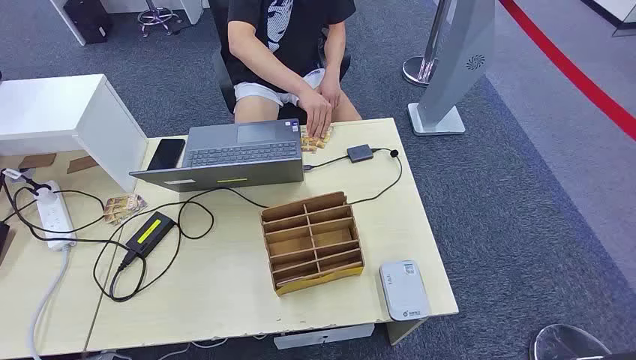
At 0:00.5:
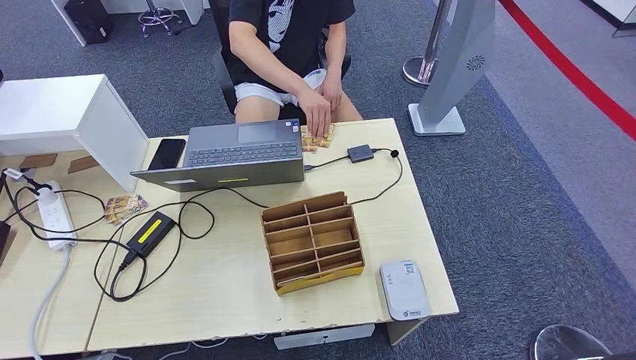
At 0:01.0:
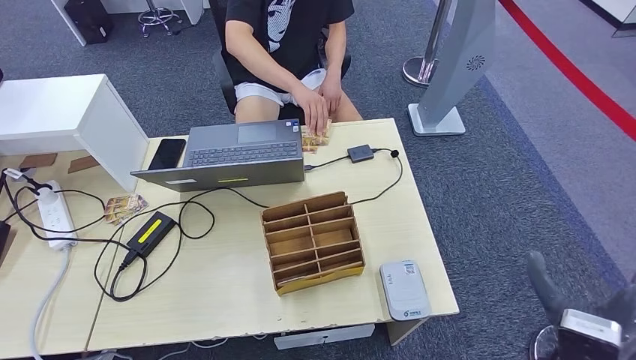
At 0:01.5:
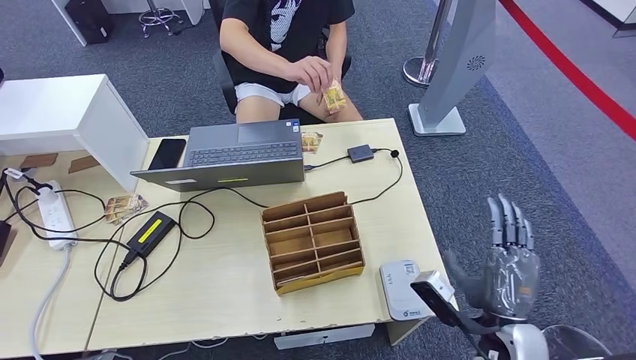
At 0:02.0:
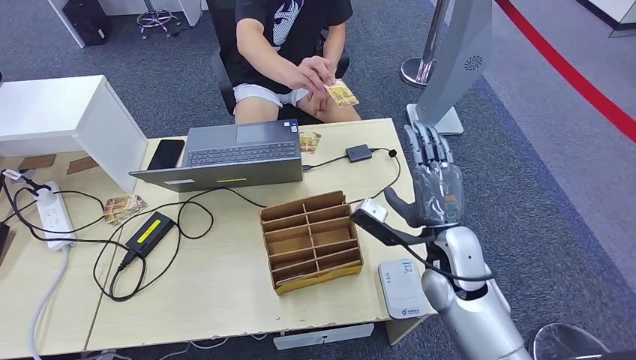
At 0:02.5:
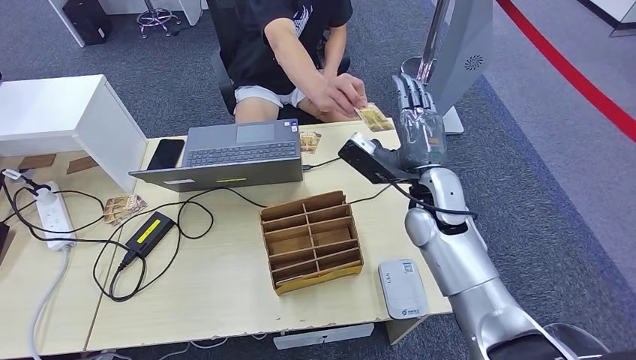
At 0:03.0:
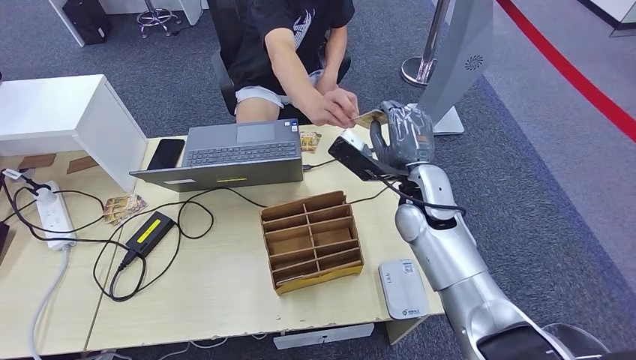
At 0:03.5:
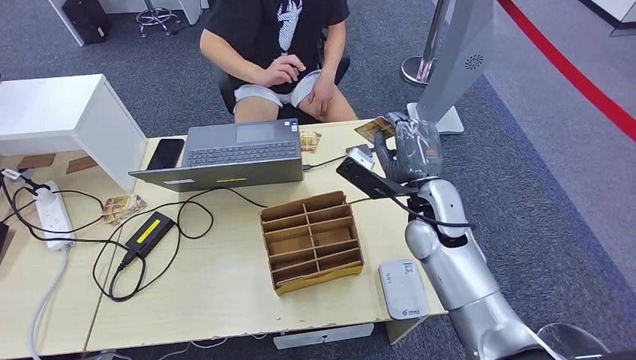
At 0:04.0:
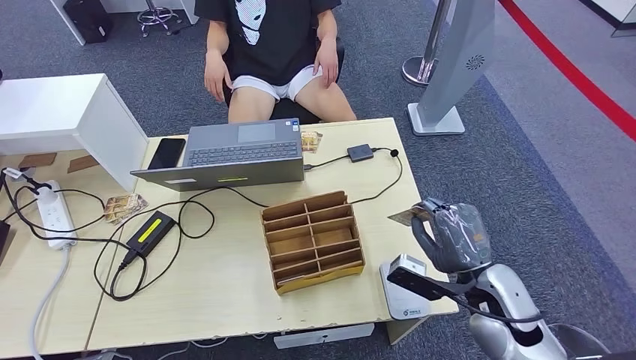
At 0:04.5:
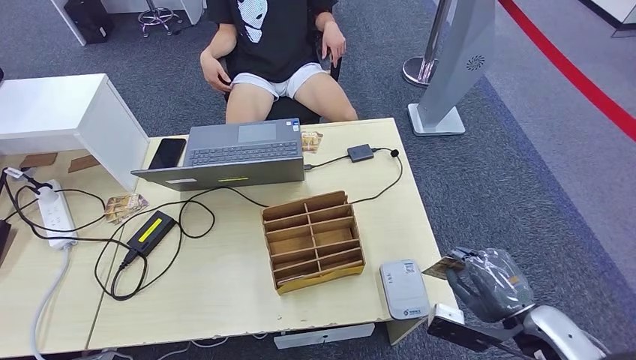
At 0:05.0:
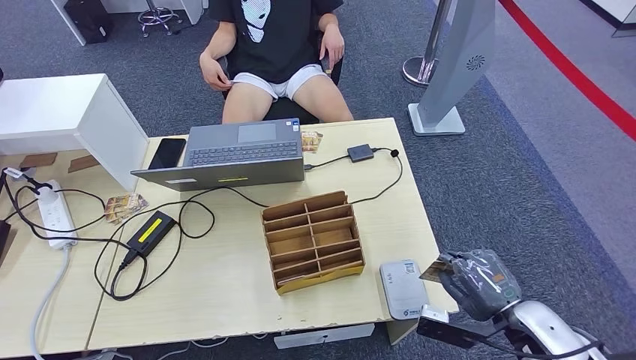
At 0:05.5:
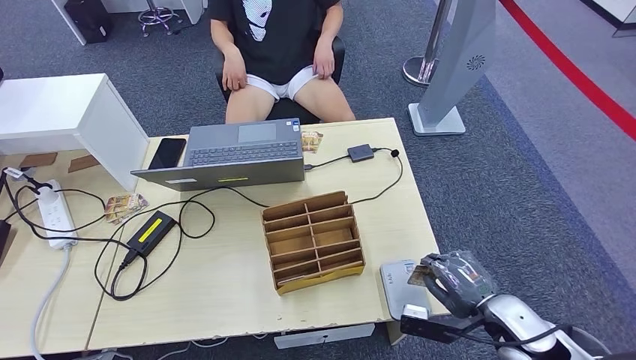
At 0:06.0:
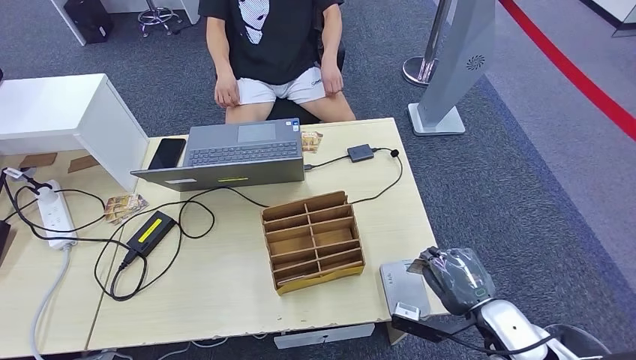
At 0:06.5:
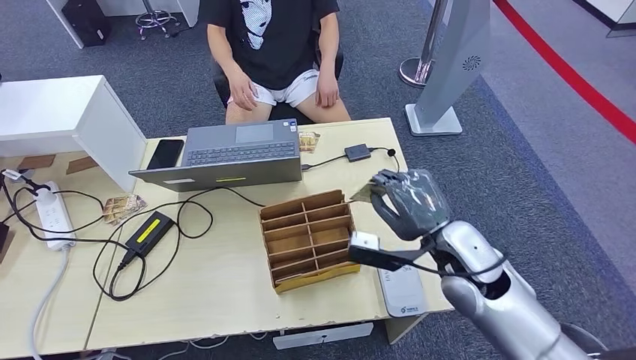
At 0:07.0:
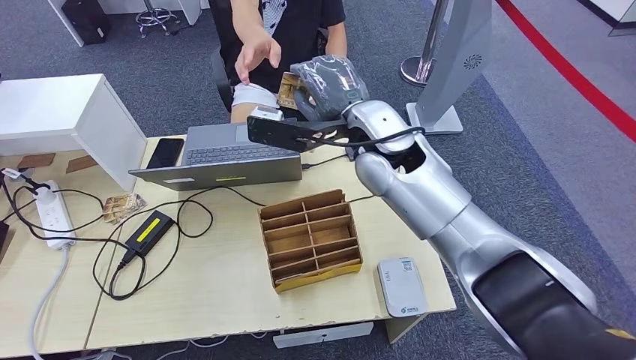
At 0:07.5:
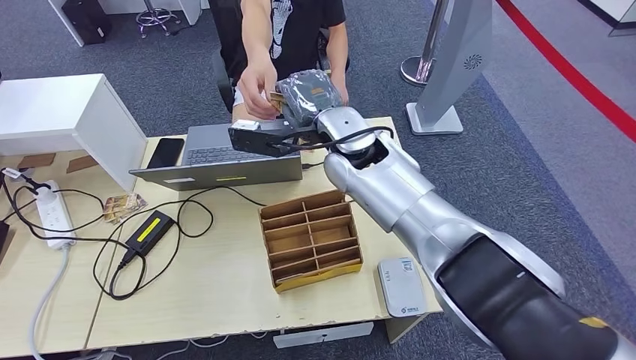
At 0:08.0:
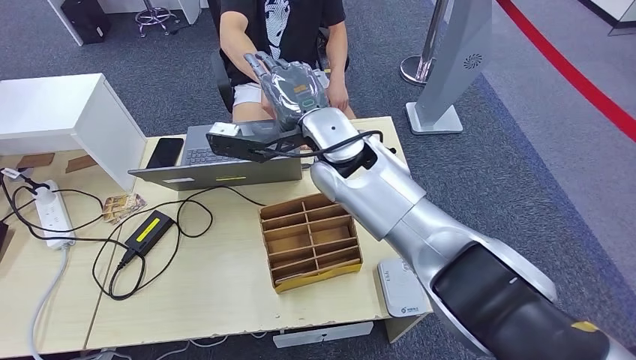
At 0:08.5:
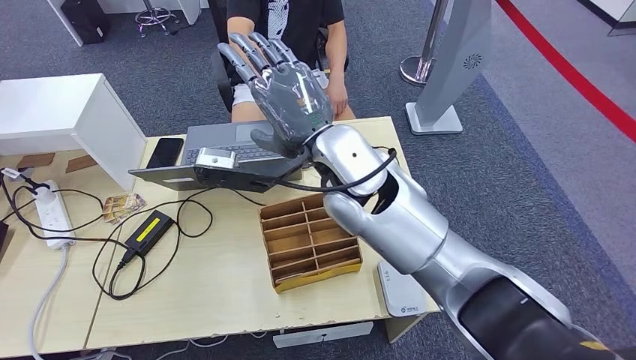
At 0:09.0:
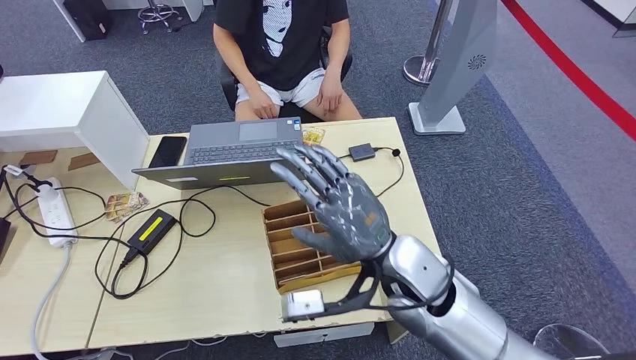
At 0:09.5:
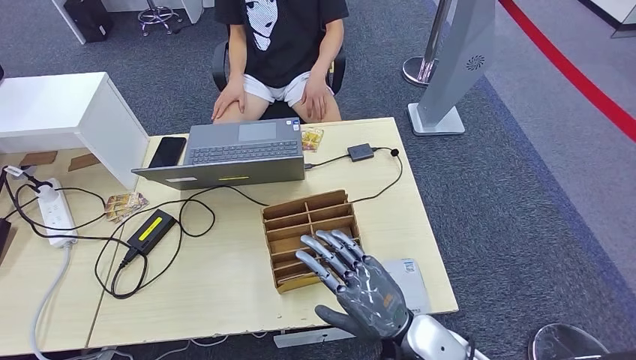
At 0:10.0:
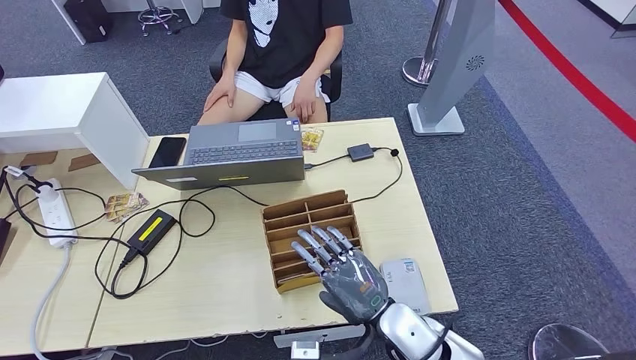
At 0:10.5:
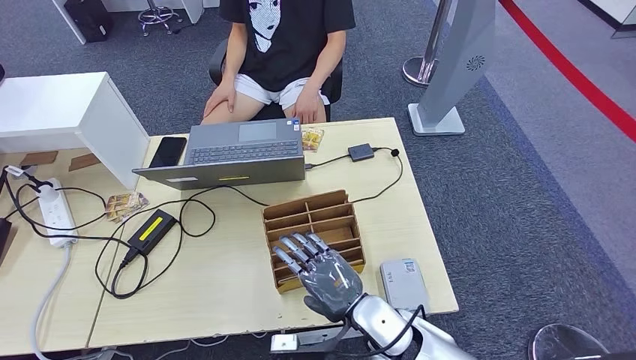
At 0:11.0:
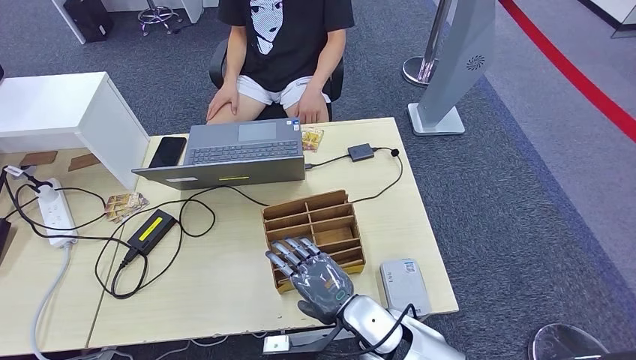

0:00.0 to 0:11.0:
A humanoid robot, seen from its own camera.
Step, 0:00.0 to 0:03.0: Take the ID card from the person's hand.
Step, 0:03.5 to 0:05.5: Place the ID card on the card reader.
Step, 0:06.0 to 0:07.5: Hand the ID card to the person.
0:02.0 to 0:03.5: The right hand heads forward, covering approximately 5 cm.
0:03.5 to 0:05.5: The right hand is displaced backward, to the right and downward by about 25 cm.
0:09.0 to 0:11.0: The right hand moves downward, some 15 cm.

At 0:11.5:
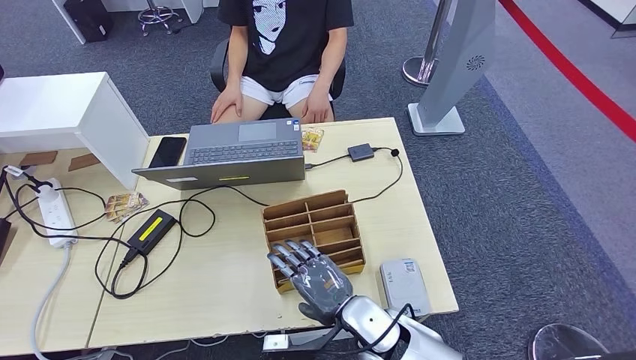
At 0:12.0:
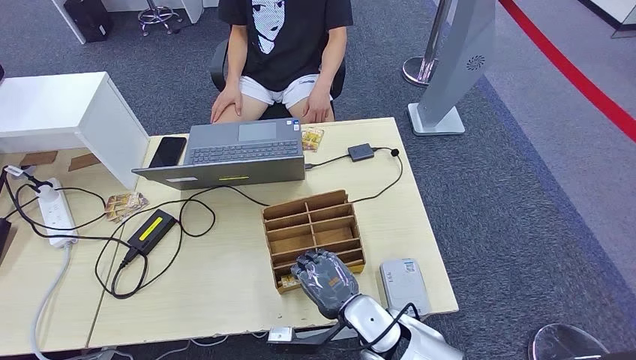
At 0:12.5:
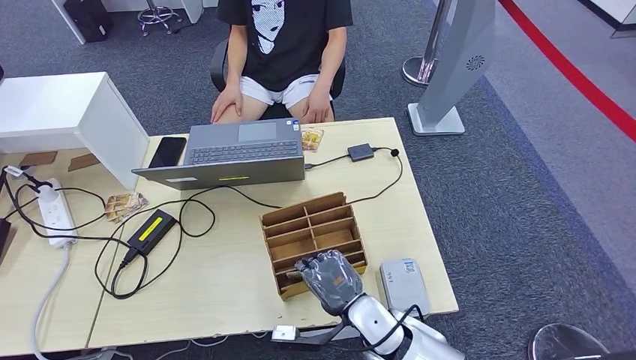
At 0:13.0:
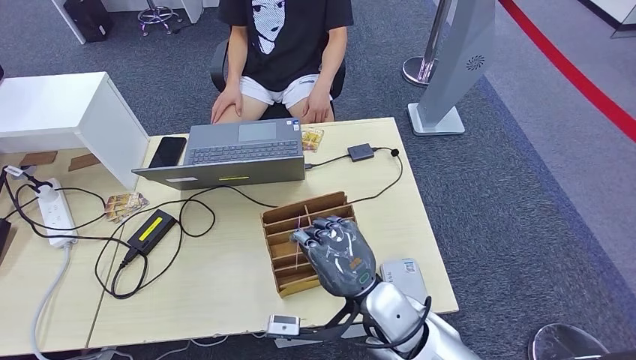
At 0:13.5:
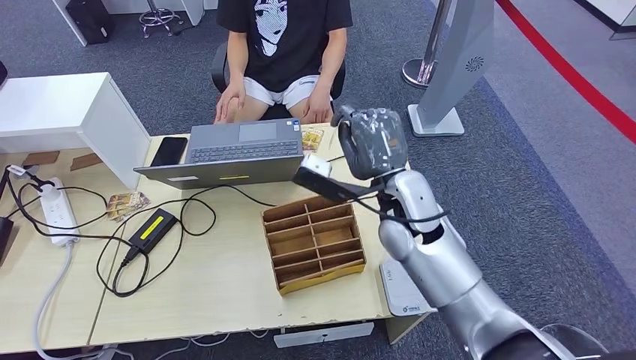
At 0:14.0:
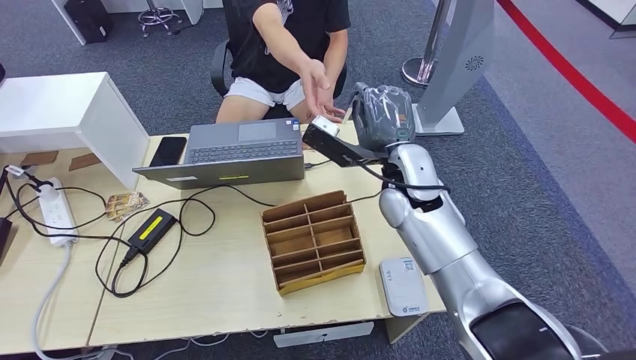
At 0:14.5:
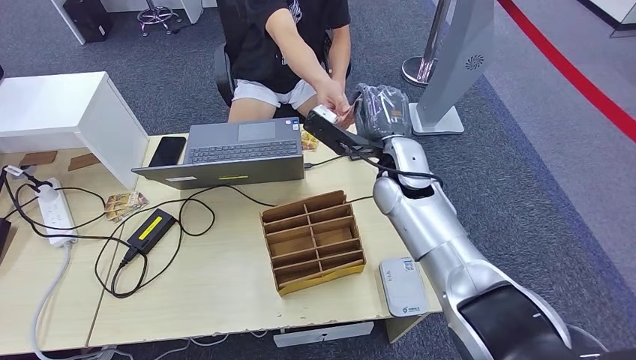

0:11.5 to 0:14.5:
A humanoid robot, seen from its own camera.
Step, 0:13.0 to 0:14.5: Hand the room key to the person.
0:11.5 to 0:13.0: The right hand shifts roughly 5 cm upward.
0:13.0 to 0:14.5: The right hand moves forward and upward, about 20 cm.
